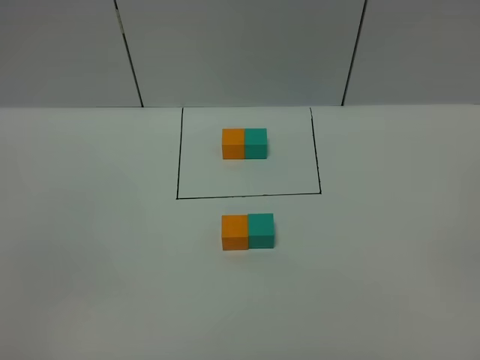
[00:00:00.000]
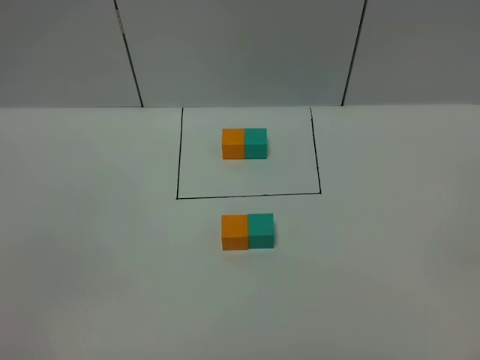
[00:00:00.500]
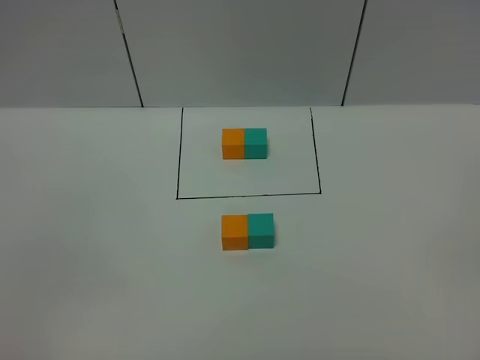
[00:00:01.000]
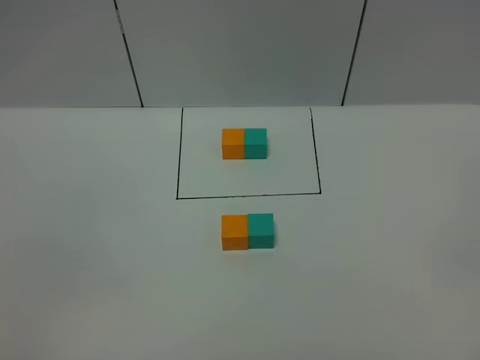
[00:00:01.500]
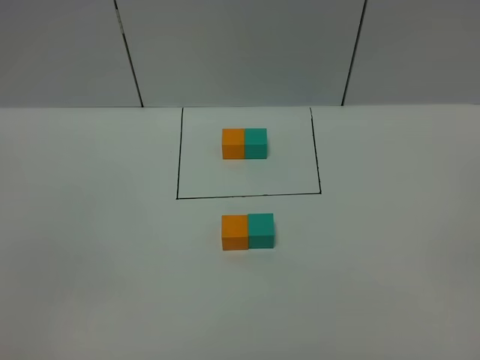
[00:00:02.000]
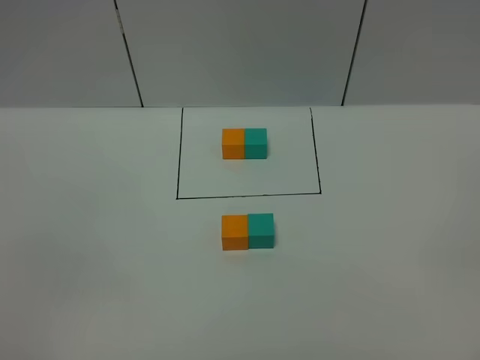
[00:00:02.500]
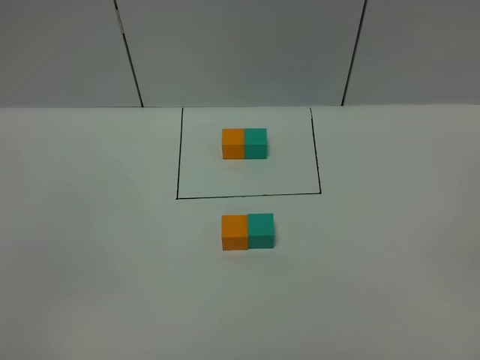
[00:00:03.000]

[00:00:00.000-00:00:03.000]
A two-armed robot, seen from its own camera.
Task of the whole recording: According to the building block template in front, assemble the scattered blocks together.
00:00:00.000 to 00:00:03.000: Neither gripper changes place.
